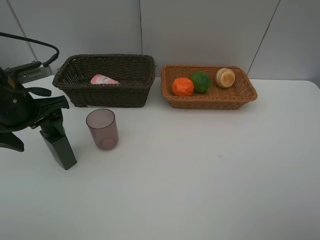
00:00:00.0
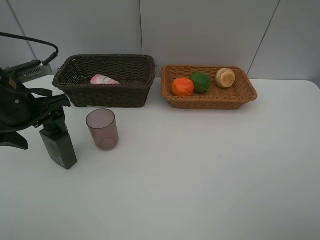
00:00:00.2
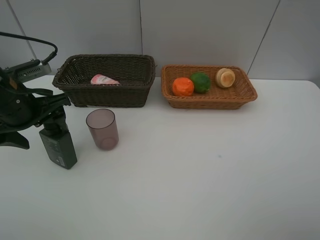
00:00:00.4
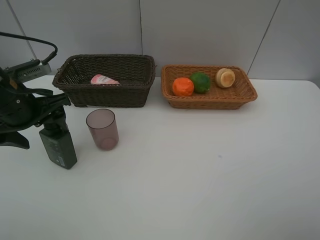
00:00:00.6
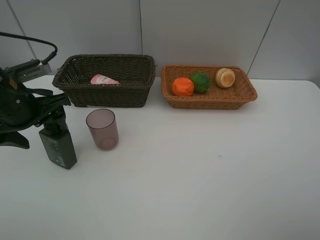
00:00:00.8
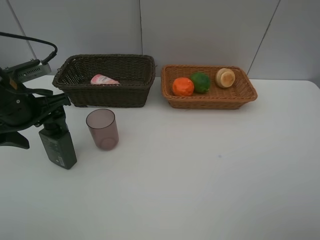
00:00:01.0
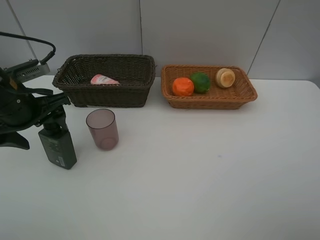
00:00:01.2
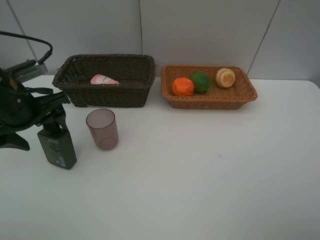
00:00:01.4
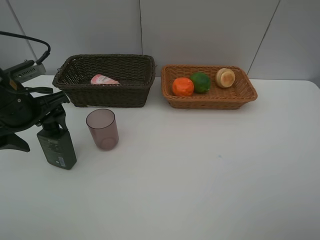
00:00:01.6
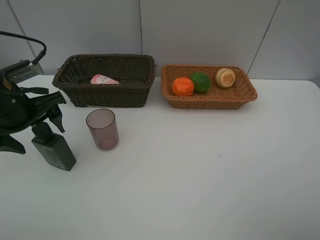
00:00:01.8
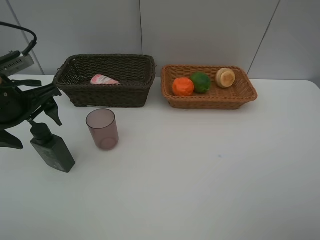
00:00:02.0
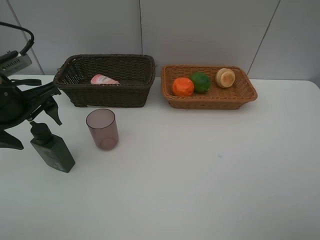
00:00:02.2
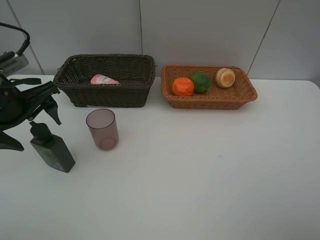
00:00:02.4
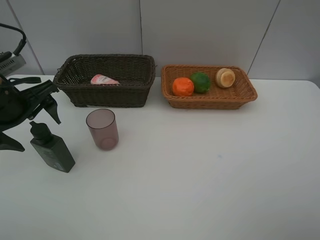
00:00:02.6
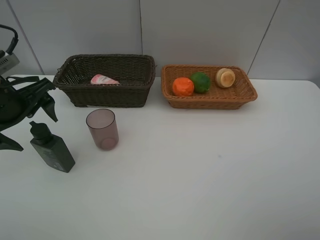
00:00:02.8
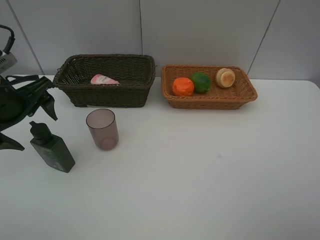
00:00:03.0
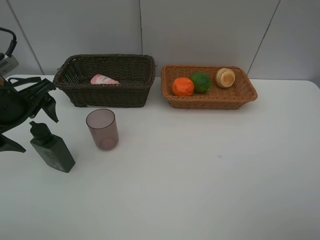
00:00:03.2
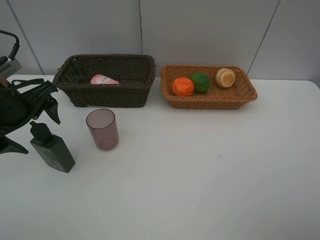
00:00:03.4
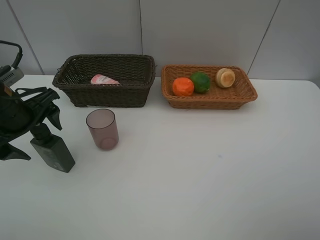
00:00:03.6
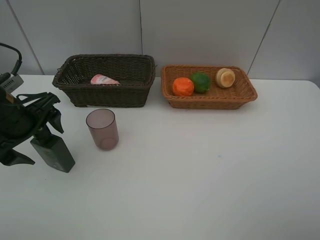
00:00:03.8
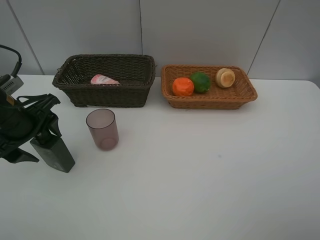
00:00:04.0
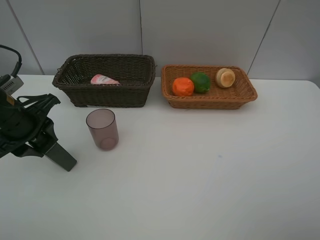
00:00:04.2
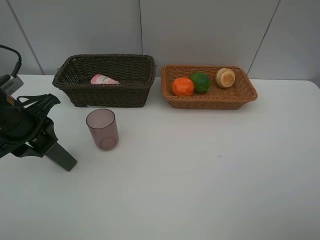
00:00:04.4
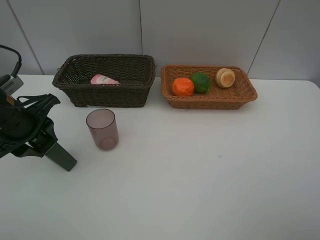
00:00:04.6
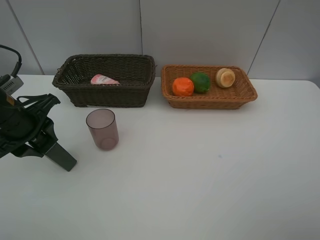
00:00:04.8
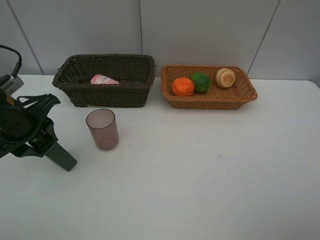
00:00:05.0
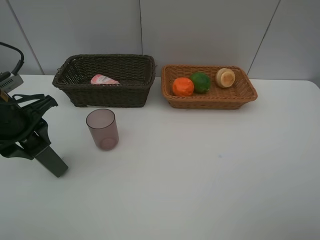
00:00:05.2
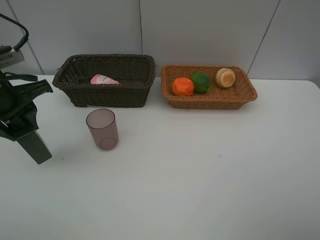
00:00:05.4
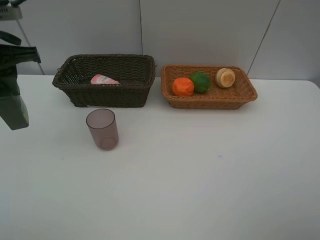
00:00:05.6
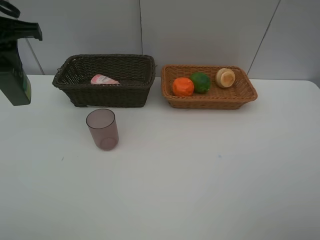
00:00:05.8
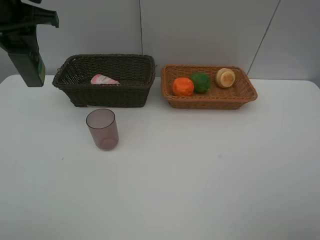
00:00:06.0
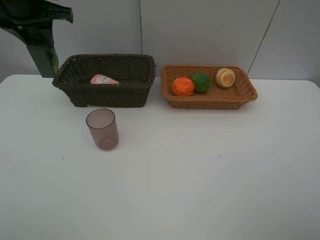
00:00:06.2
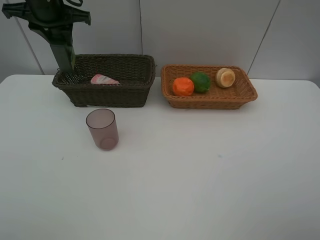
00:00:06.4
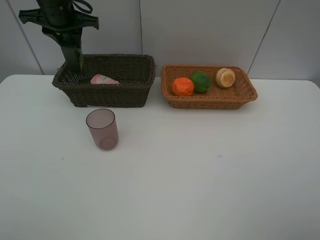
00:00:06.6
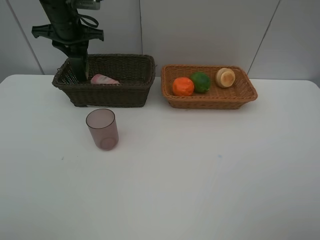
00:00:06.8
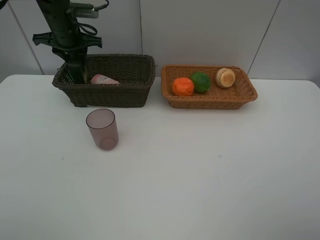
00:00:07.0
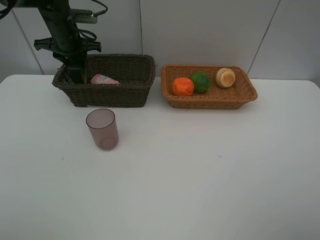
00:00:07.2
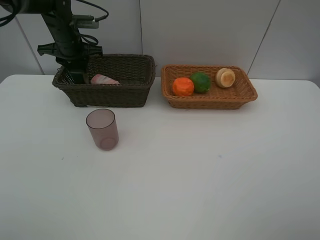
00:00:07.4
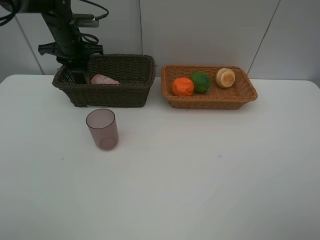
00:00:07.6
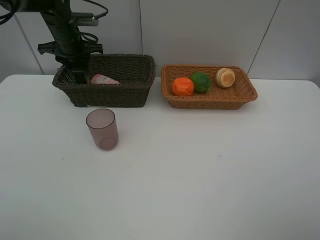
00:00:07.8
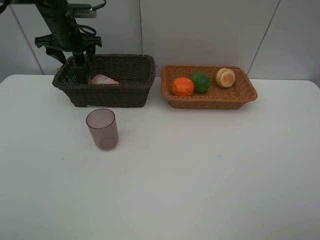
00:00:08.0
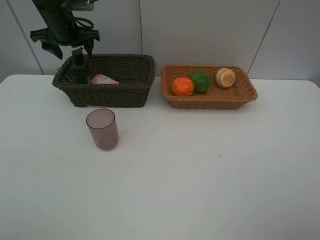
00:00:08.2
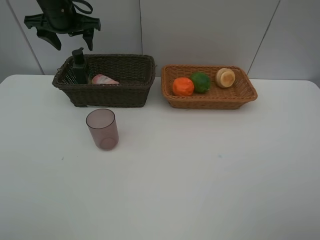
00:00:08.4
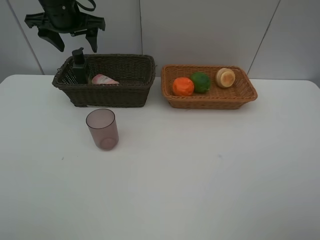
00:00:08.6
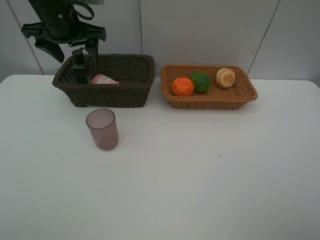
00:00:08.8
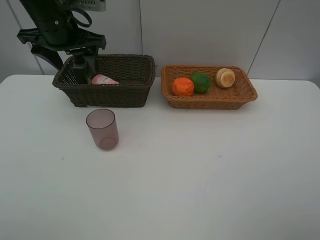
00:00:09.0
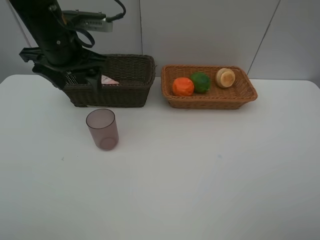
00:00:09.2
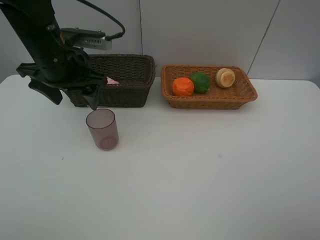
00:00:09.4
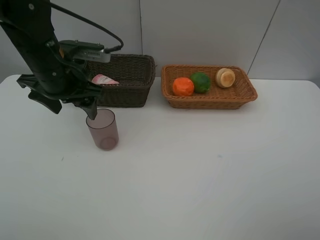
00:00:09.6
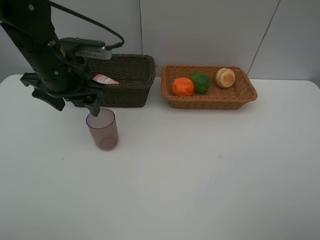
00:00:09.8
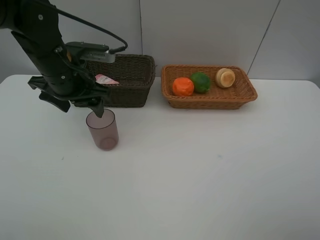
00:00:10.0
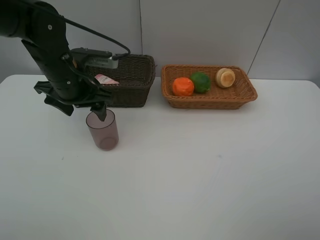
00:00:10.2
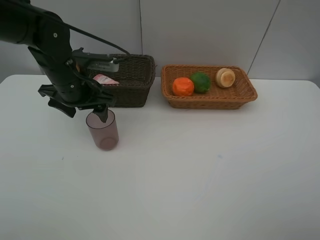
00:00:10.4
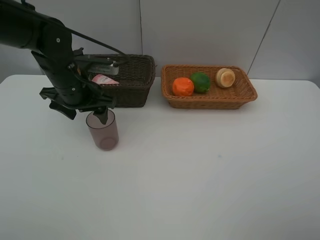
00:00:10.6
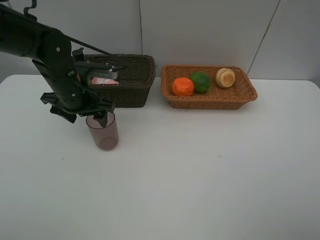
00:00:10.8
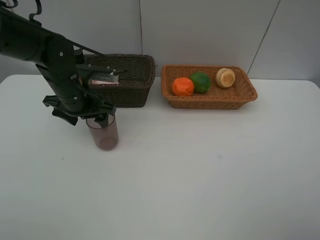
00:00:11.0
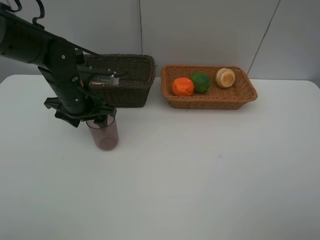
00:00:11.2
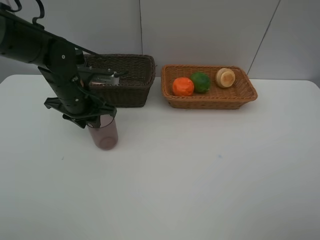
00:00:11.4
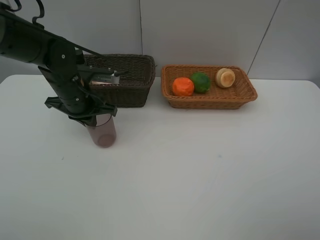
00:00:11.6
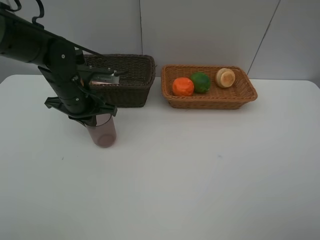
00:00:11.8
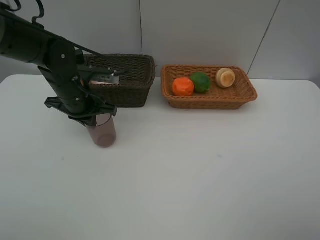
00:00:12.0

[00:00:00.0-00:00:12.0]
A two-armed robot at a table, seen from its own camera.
Task of the whole recording: place multiple objects separately in different baskets.
Step, 00:00:00.0 to 00:00:05.4: Pick up the facial cleanser with left gripper.
Step, 00:00:05.6 to 00:00:08.2: Place the facial cleanser in the dark basket with left gripper.
00:00:00.0 to 00:00:01.6: There are only small adjustments of the grippers.
00:00:01.6 to 00:00:03.0: The grippers make only small movements.
00:00:03.0 to 00:00:04.4: The left gripper closes its fingers.
00:00:04.4 to 00:00:06.0: The left gripper moves upward and forward, approximately 20 cm.
00:00:06.0 to 00:00:07.6: The left gripper heads forward and downward, covering some 20 cm.
00:00:07.6 to 00:00:09.0: The left gripper travels backward and upward by approximately 15 cm, and opens its fingers.
00:00:09.0 to 00:00:10.4: The left gripper travels downward by some 10 cm.
00:00:10.4 to 00:00:12.0: The left gripper closes.

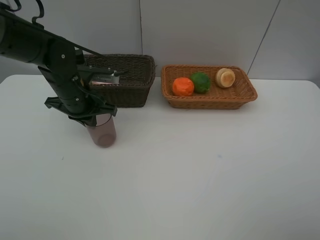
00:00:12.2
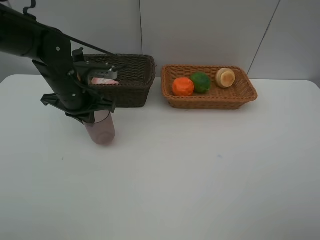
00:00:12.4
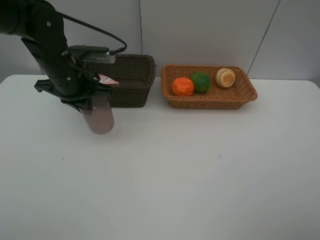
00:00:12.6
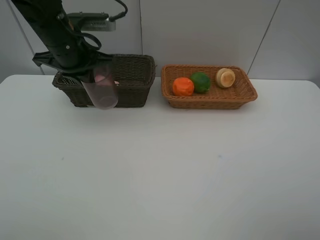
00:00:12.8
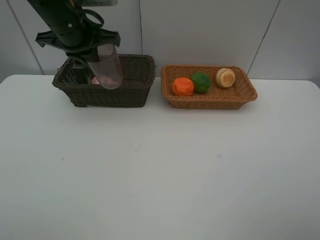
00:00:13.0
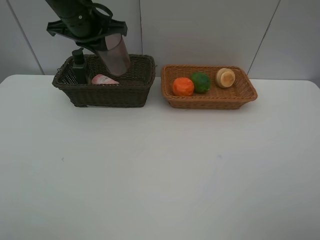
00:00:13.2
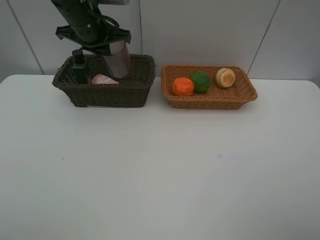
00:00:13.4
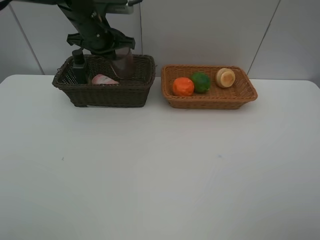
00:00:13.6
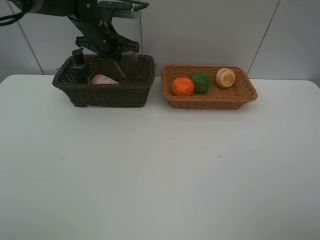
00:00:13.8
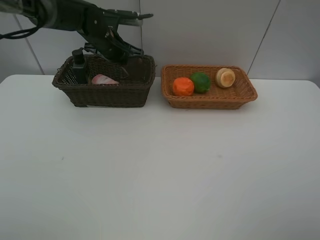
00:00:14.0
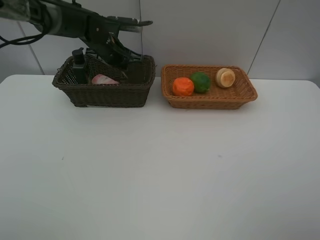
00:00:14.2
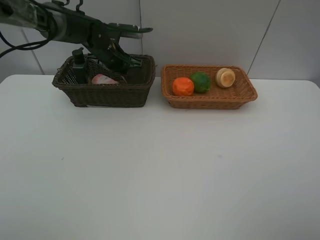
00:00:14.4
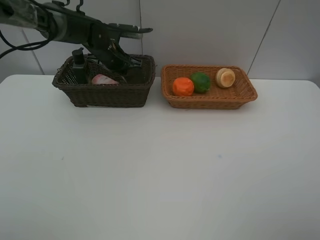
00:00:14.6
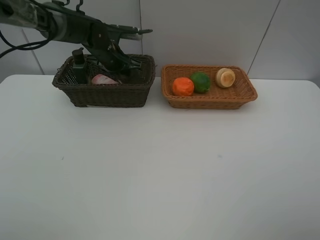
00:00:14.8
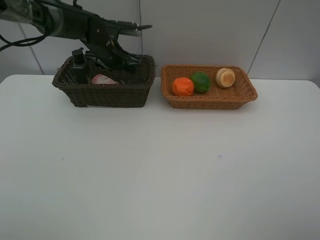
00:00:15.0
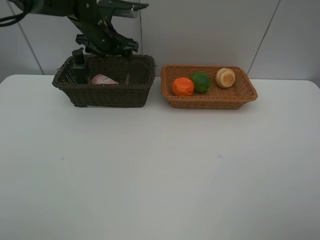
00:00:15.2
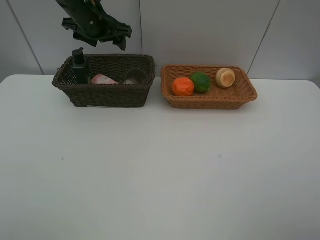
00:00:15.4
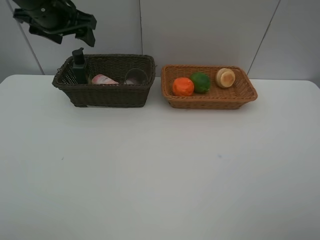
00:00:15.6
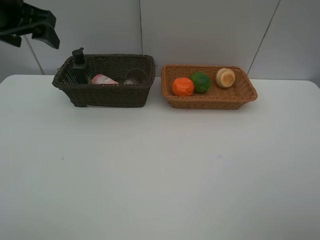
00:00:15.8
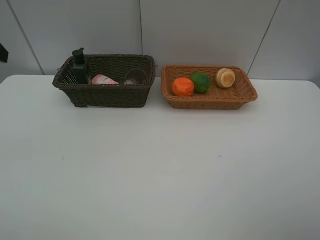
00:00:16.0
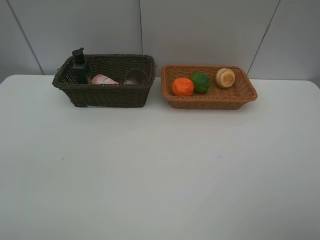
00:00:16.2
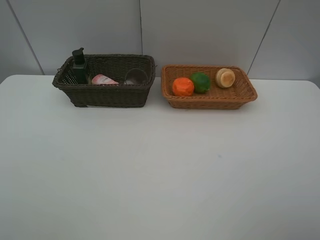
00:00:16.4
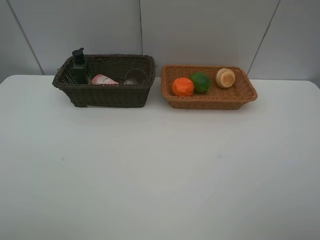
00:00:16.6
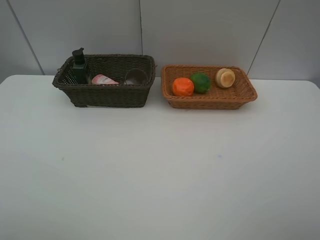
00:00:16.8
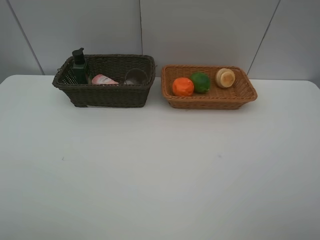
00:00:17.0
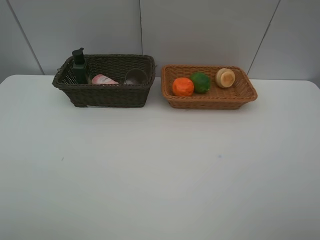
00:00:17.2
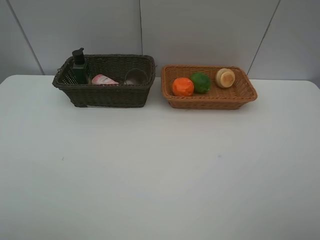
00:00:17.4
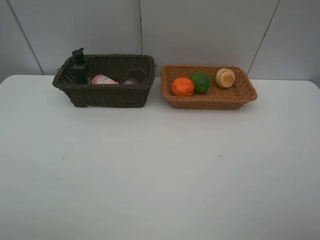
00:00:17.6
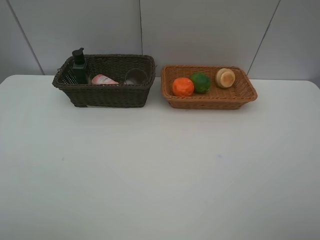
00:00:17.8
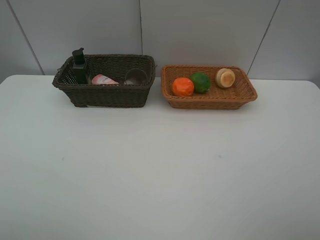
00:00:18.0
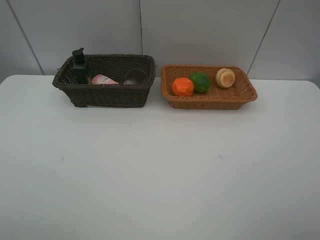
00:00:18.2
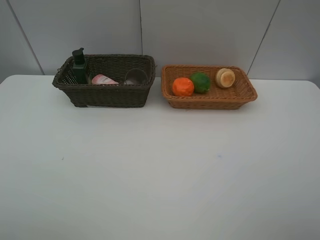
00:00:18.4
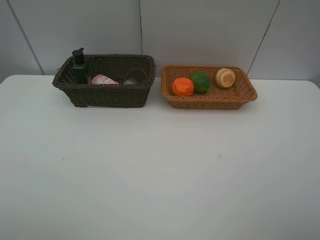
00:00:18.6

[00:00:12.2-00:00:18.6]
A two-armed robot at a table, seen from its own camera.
Task of the whole recording: place multiple objects separately in different baskets.
Step, 00:00:12.8 to 00:00:15.4: Place the brown cup in the dark basket with left gripper.
00:00:12.2 to 00:00:13.8: The left gripper moves forward and upward, some 15 cm.
00:00:13.8 to 00:00:15.4: The left gripper shifts roughly 5 cm upward, and opens.
00:00:15.4 to 00:00:17.0: The left gripper heads backward, covering approximately 50 cm.
